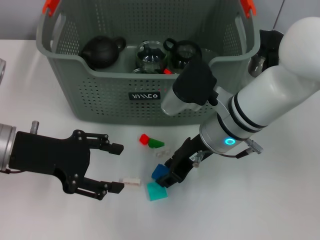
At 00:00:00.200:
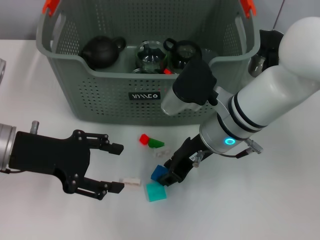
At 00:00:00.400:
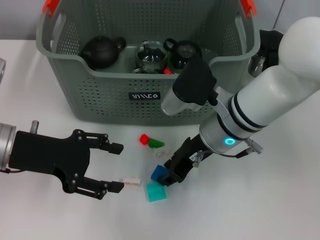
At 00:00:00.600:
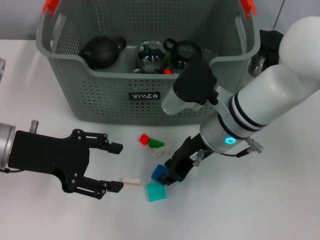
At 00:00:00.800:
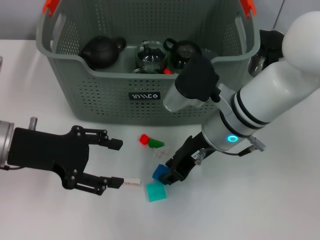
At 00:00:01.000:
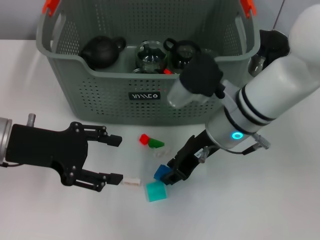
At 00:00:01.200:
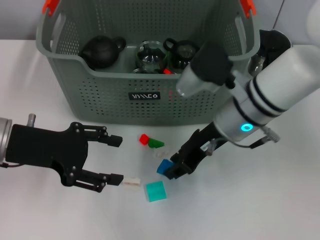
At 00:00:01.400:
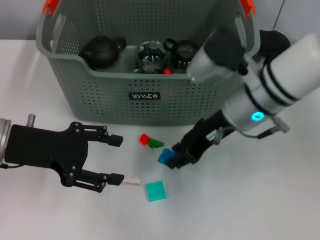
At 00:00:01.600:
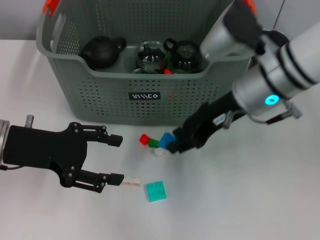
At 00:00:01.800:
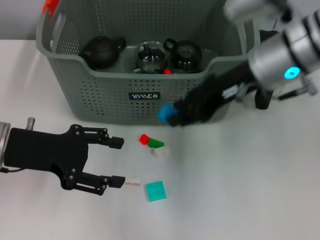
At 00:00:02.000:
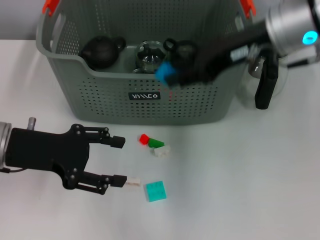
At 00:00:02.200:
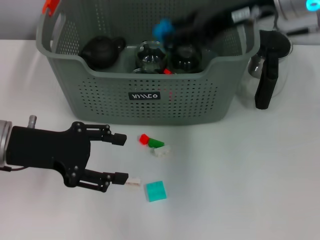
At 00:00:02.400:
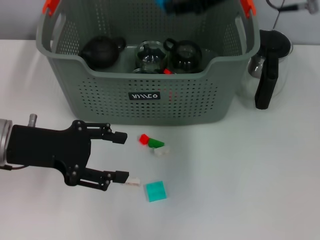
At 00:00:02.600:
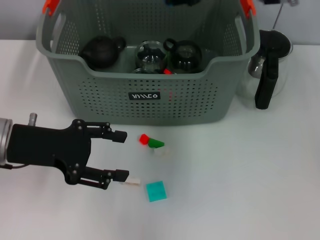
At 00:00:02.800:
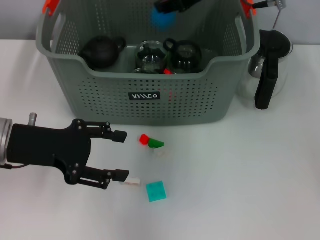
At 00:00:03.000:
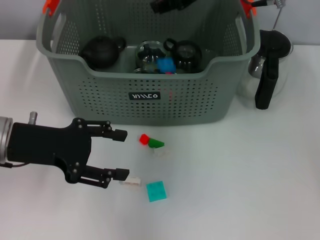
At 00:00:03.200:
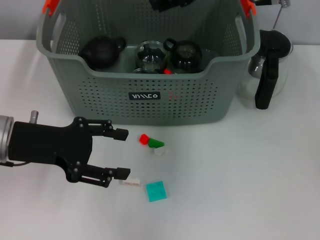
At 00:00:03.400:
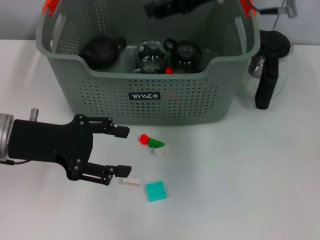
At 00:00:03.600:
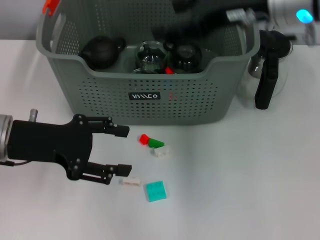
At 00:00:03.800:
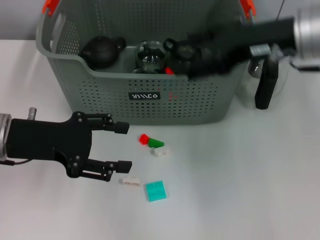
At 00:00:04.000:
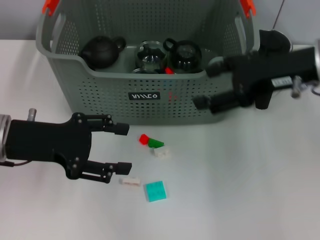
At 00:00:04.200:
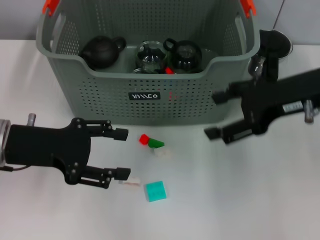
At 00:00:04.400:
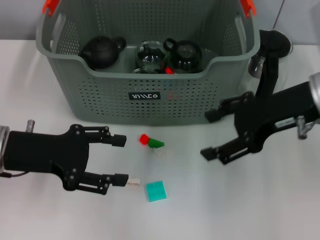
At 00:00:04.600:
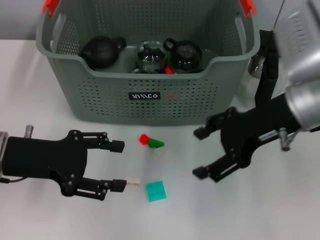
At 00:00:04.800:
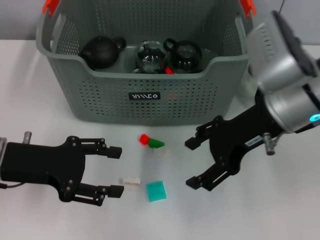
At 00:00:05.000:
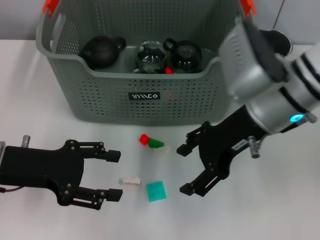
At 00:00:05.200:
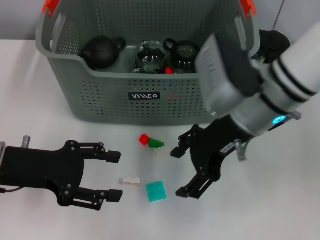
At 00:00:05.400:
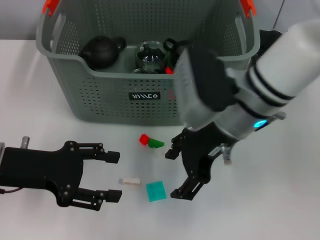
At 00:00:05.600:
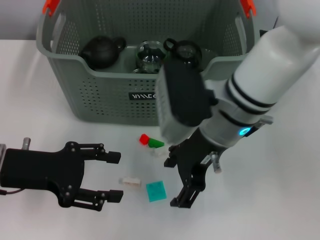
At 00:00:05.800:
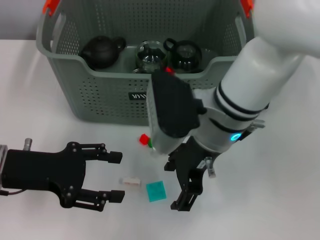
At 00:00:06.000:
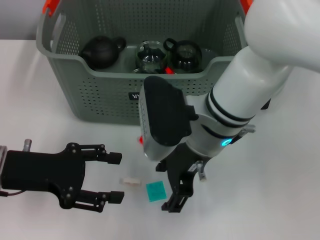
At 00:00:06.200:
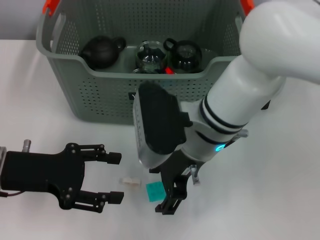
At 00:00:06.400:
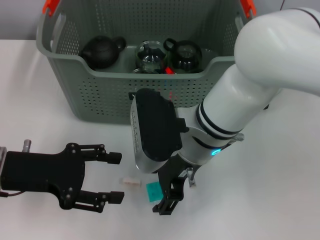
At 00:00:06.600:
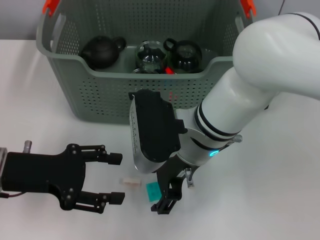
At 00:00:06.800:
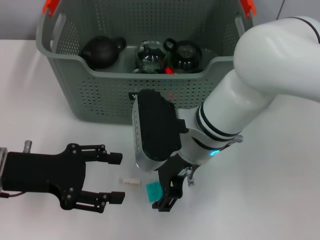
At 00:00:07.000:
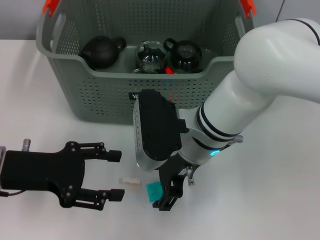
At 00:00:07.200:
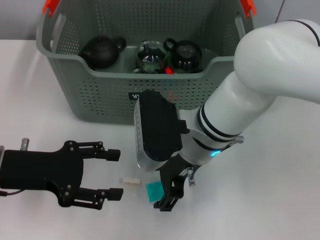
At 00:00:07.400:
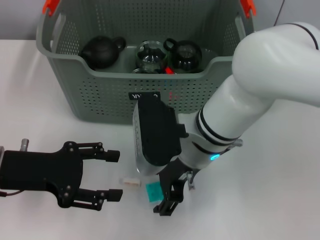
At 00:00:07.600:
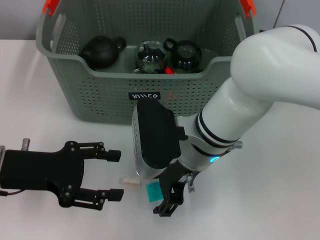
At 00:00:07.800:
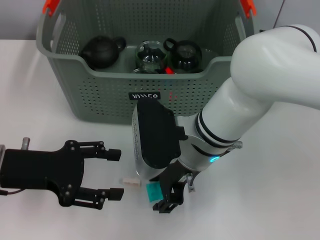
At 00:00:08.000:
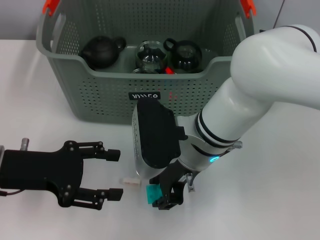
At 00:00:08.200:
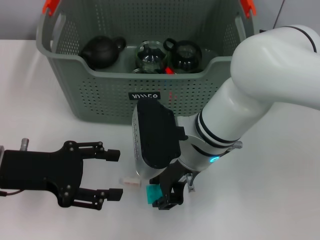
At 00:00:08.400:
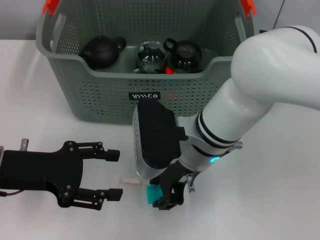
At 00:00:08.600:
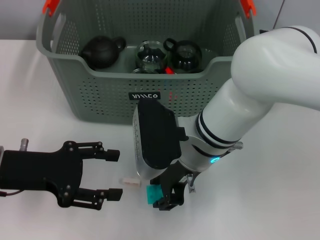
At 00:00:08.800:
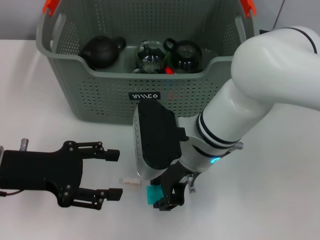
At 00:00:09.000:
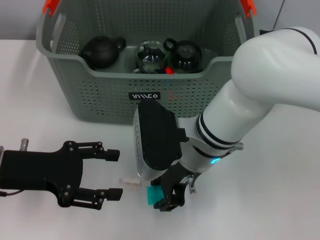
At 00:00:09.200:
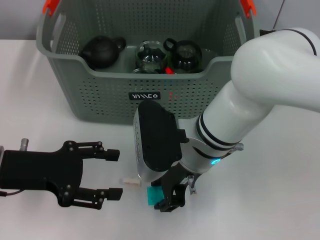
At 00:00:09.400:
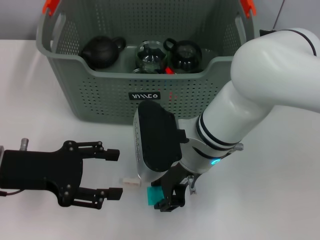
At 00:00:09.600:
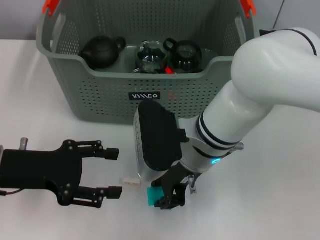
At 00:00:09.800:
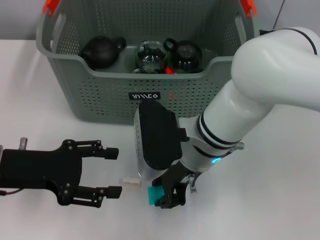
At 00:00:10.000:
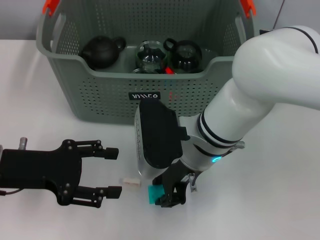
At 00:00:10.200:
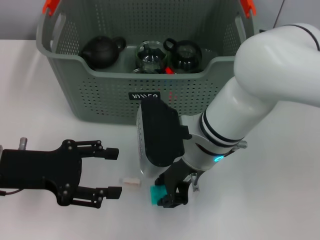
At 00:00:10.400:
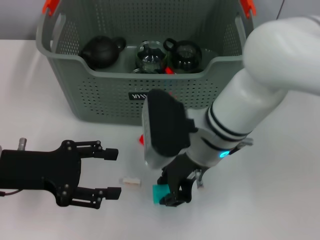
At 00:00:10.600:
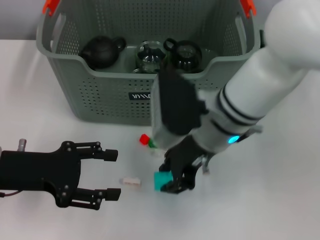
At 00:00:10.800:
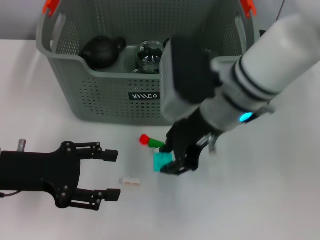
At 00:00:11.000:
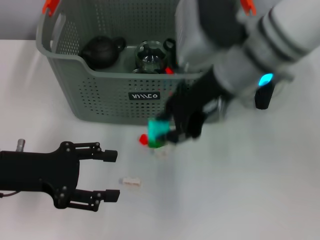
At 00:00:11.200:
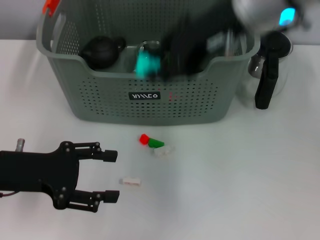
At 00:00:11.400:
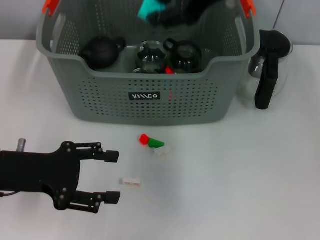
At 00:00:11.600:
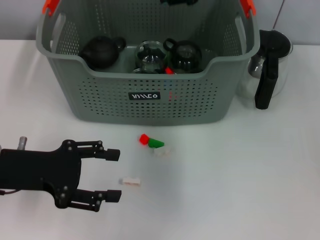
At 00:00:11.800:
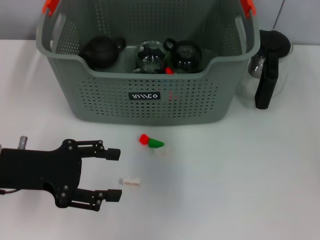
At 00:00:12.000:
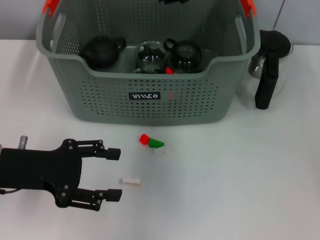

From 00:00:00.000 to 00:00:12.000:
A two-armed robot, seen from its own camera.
Task of the whole recording: pick up the teacup on the table and place it into the storage bin, pick up the block on the table and place it into the storage bin.
Step, from 00:00:01.000 to 00:00:03.000: Place the dark blue block in the storage box with right gripper.
From 00:00:00.000 to 00:00:01.600: The right gripper travels upward by approximately 10 cm.
From 00:00:01.600 to 00:00:03.000: The right gripper shifts roughly 10 cm forward and upward.
From 00:00:03.000 to 00:00:04.400: The right gripper travels backward, to the right and downward by about 15 cm, and opens its fingers.
From 00:00:04.400 to 00:00:06.000: The right gripper travels to the left by approximately 15 cm.
From 00:00:06.000 to 00:00:07.600: The grippers move only a little.
From 00:00:07.600 to 00:00:09.000: The right gripper closes its fingers.
From 00:00:09.000 to 00:00:10.400: The grippers make only small movements.
From 00:00:10.400 to 00:00:12.000: The right gripper is displaced upward and forward by about 20 cm.

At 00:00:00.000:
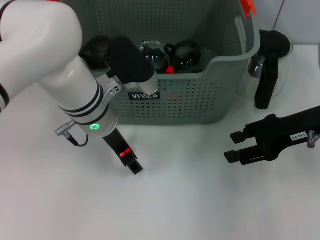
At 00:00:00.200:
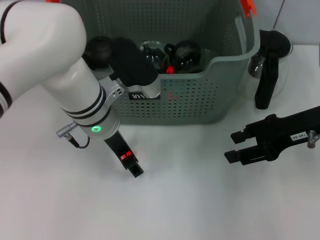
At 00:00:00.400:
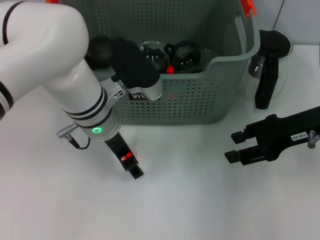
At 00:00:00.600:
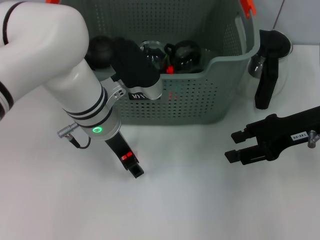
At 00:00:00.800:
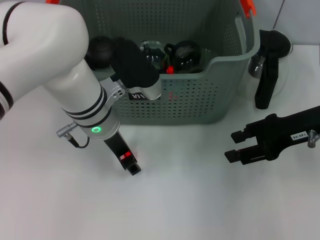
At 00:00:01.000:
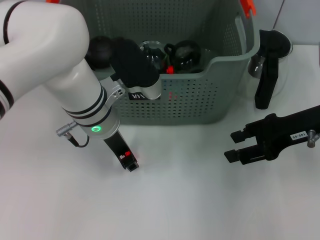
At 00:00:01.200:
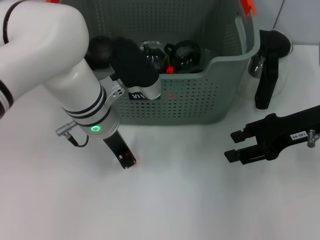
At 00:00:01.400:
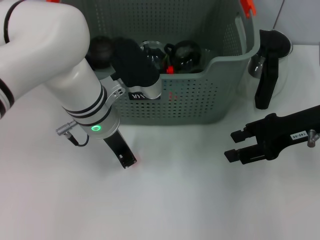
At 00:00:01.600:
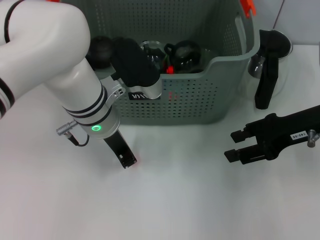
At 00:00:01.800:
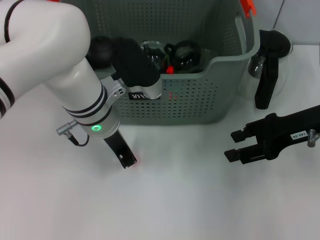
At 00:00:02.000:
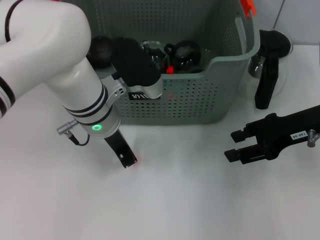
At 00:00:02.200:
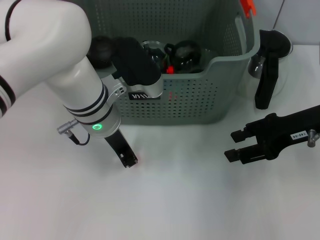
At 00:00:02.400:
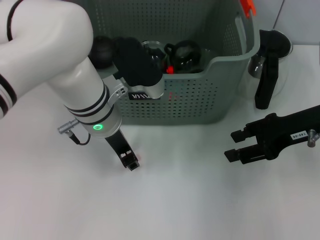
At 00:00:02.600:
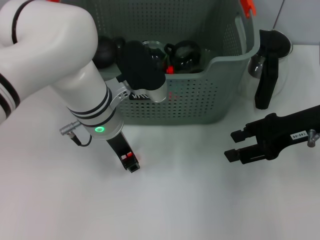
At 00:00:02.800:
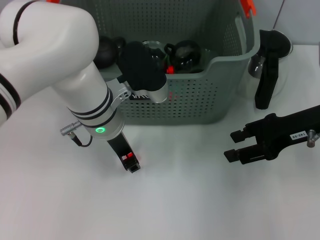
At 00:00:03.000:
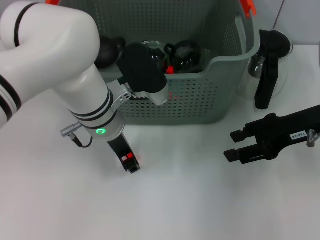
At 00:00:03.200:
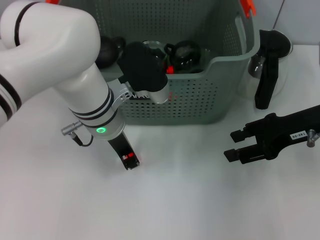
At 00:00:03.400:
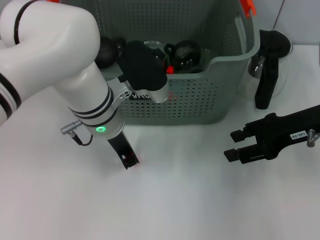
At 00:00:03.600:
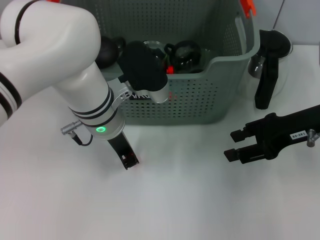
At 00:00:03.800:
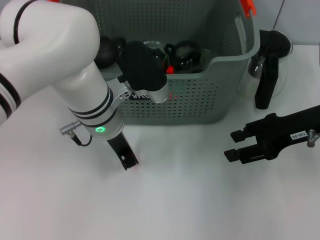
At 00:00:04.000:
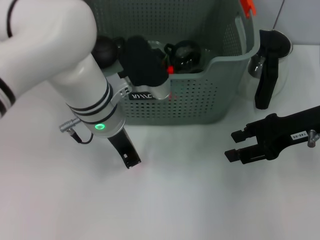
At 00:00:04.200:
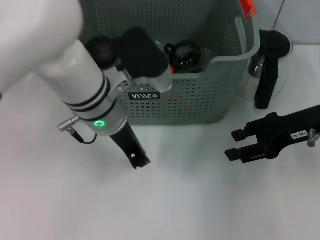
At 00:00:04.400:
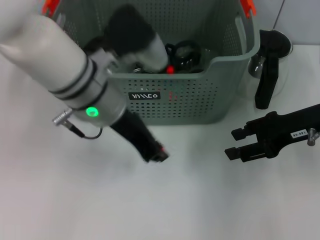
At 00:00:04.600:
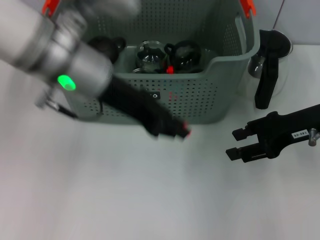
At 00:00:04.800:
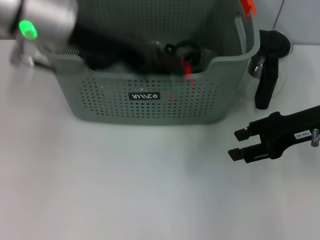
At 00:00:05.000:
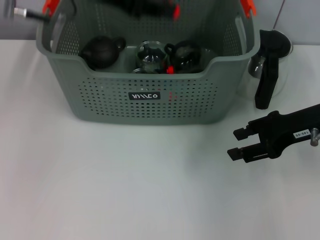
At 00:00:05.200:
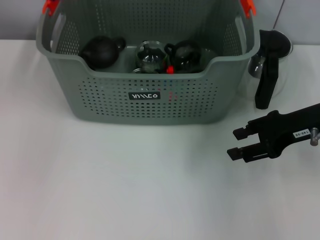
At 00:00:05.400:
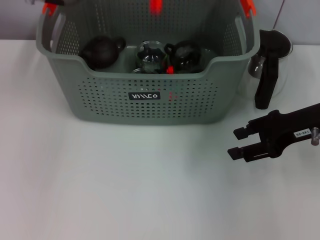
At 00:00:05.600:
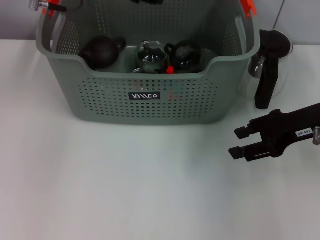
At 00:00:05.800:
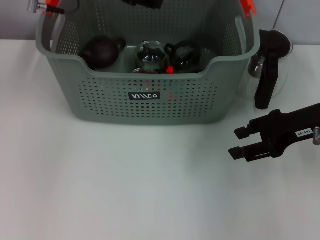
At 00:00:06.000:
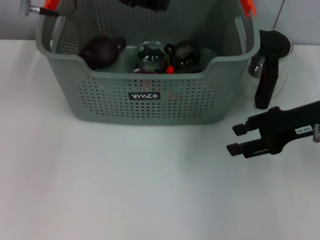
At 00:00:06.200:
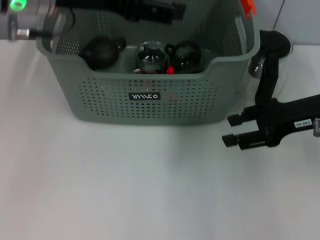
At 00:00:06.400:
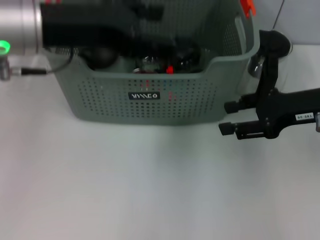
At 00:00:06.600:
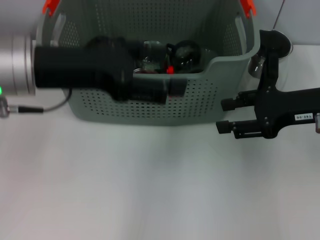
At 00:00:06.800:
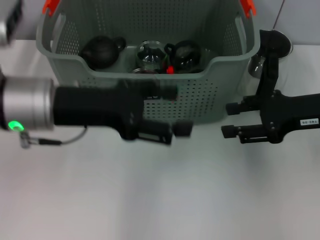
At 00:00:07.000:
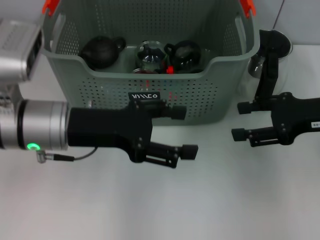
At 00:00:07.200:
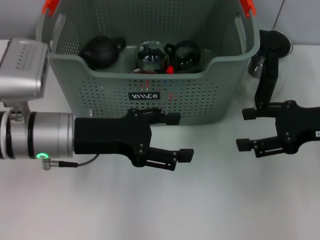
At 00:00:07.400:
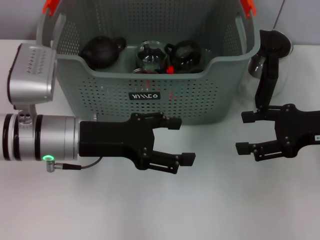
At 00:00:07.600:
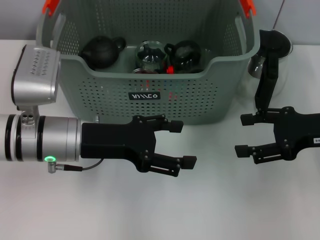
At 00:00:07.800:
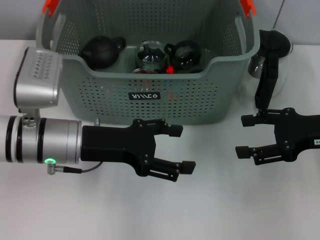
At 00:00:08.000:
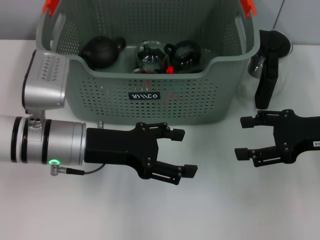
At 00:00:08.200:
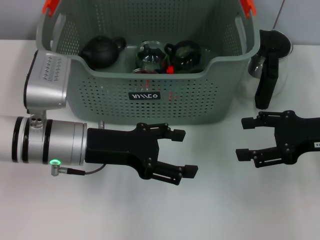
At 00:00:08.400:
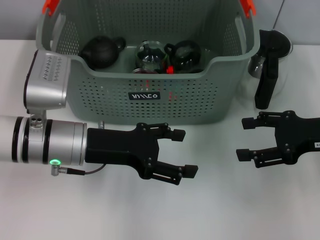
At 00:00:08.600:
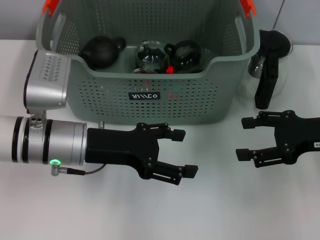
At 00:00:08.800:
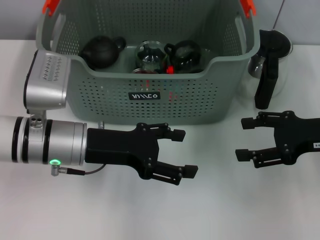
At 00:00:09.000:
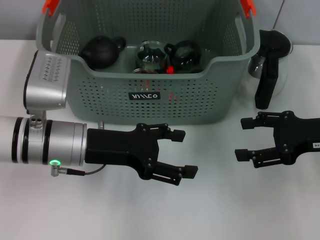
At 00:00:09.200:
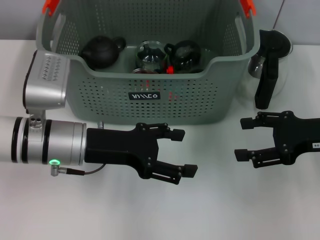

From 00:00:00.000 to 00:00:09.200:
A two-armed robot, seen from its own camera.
Task of the whole recording: pick up the teacup on the table and place it into the storage bin, pick up the block on the table and place it into the storage bin.
Step, from 00:00:00.000 to 00:00:03.600: Grasp the orange block with left gripper.
Step, from 00:00:03.800 to 00:00:05.400: Place the orange block in the storage box with left gripper.
From 00:00:00.000 to 00:00:01.600: The left gripper closes its fingers.
From 00:00:01.600 to 00:00:03.000: The two grippers keep their place.
From 00:00:03.000 to 00:00:04.600: The left gripper heads upward, covering approximately 10 cm.
From 00:00:04.600 to 00:00:06.200: The left gripper goes roughly 5 cm to the left, travels forward and back again, roughly 10 cm each way, and opens its fingers.
From 00:00:06.200 to 00:00:07.600: The left gripper goes about 15 cm downward.
From 00:00:07.600 to 00:00:09.200: Both grippers stay put.
